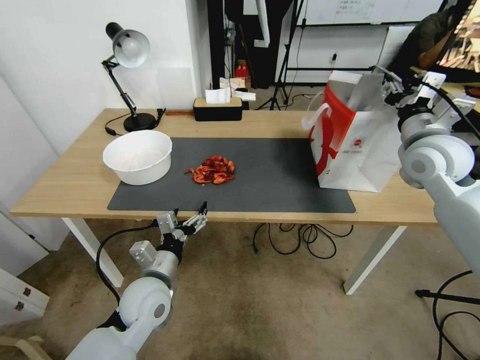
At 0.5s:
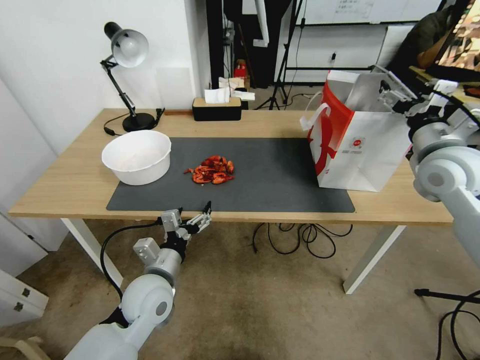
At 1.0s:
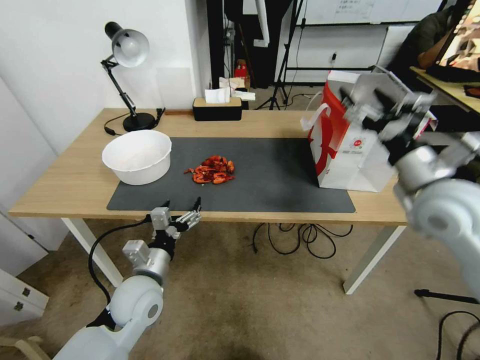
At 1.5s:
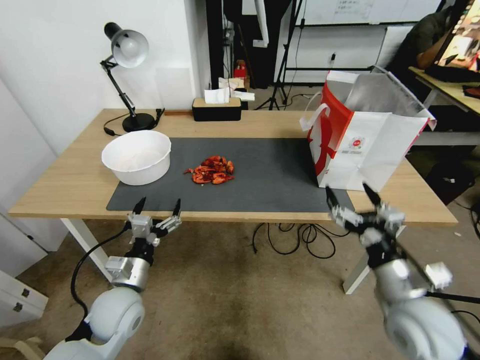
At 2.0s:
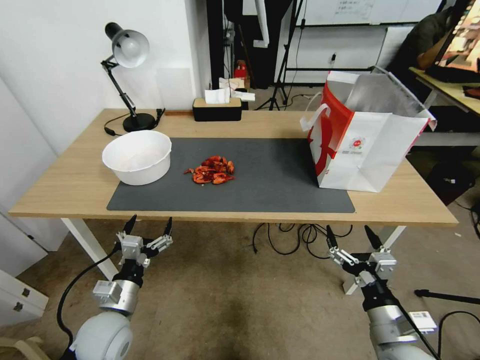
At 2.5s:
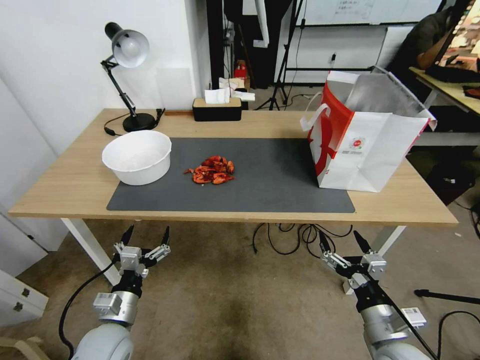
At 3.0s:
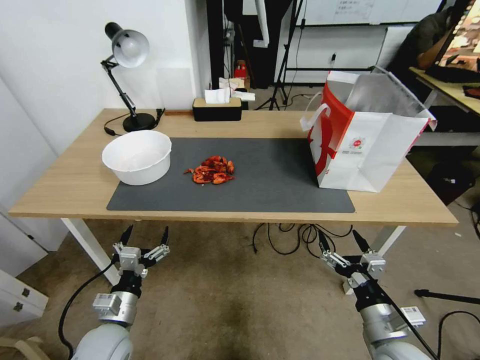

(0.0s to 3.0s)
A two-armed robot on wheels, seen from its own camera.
0.0s - 1.5s: The right gripper moves backward and downward, roughly 30 cm, and opens its fingers. Meanwhile the left gripper moves to the left, about 5 cm.
1.5s - 3.0s: The left gripper shifts roughly 5 cm backward. Meanwhile the right gripper heads downward, covering roughly 10 cm.
